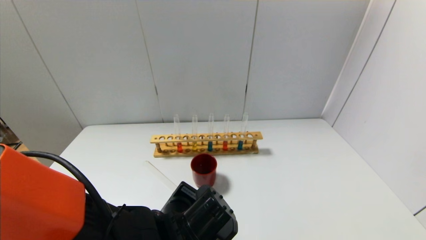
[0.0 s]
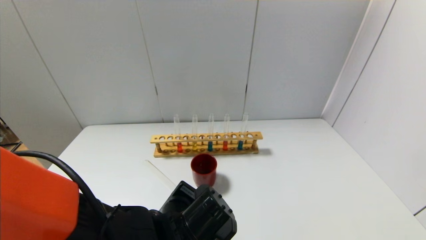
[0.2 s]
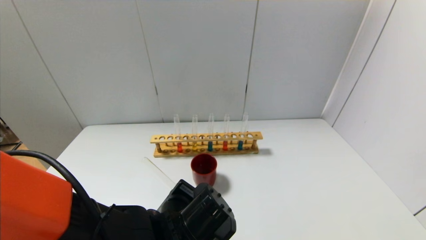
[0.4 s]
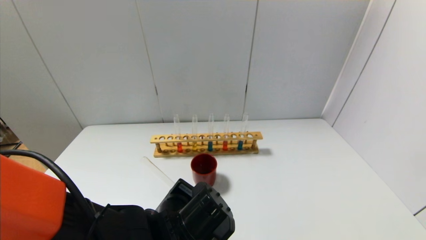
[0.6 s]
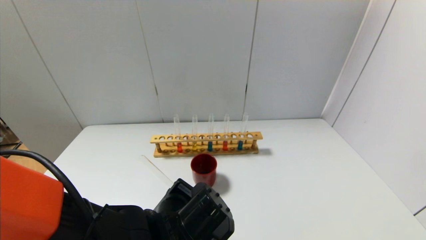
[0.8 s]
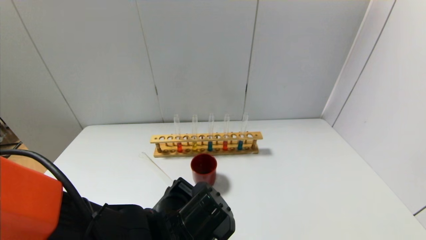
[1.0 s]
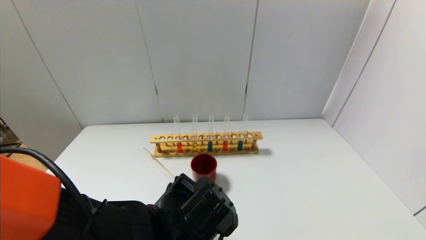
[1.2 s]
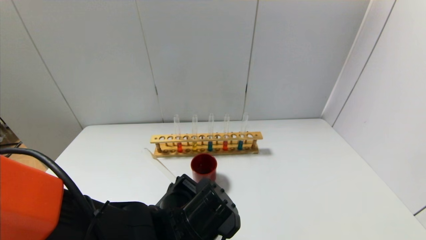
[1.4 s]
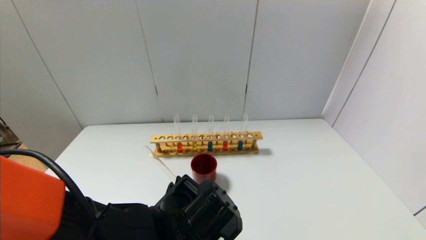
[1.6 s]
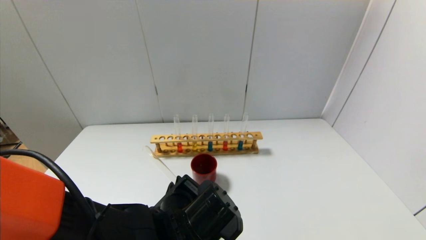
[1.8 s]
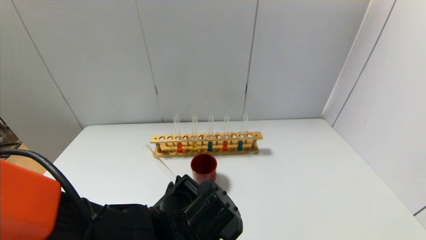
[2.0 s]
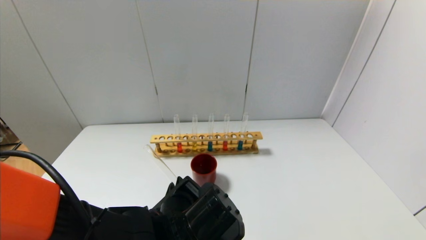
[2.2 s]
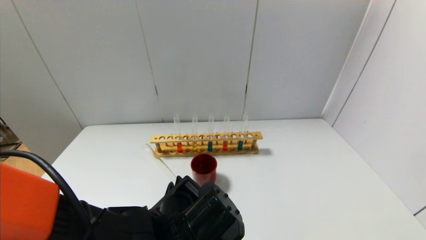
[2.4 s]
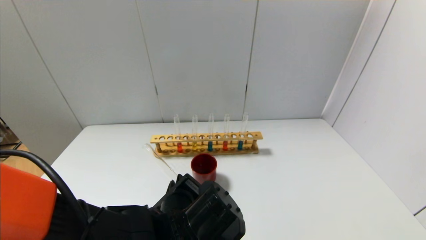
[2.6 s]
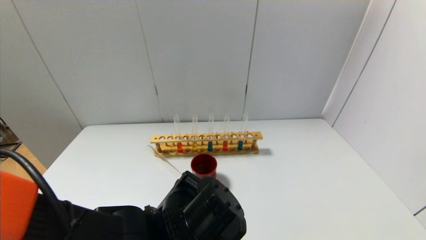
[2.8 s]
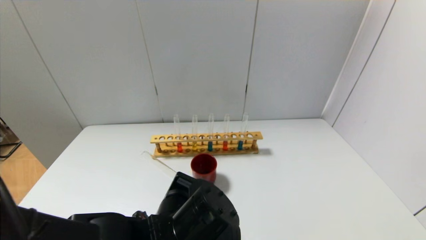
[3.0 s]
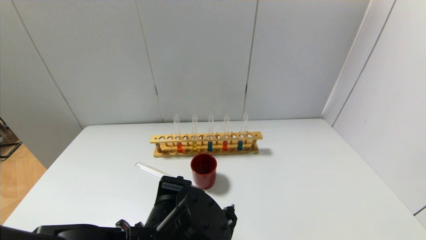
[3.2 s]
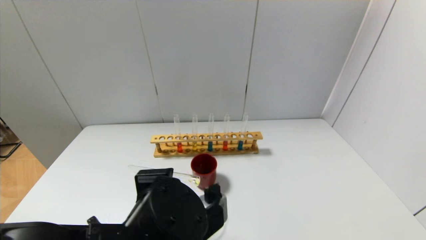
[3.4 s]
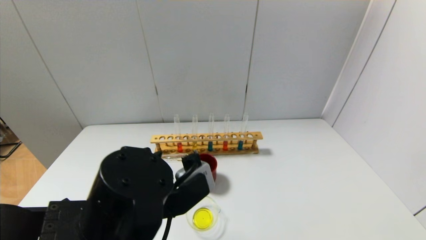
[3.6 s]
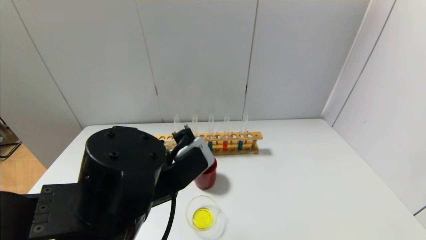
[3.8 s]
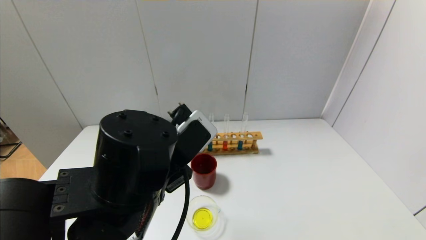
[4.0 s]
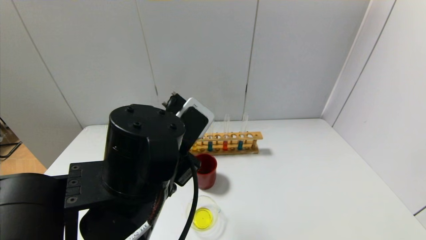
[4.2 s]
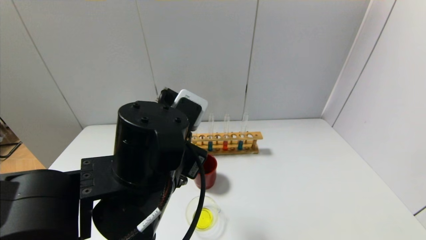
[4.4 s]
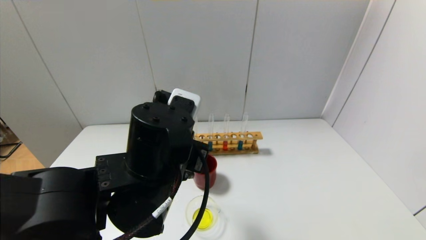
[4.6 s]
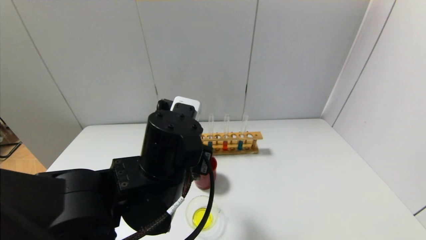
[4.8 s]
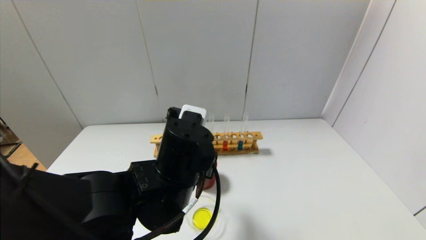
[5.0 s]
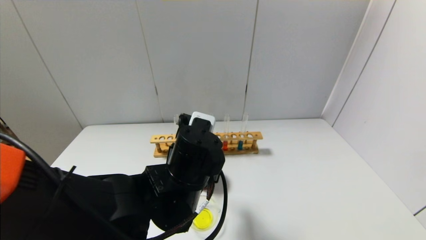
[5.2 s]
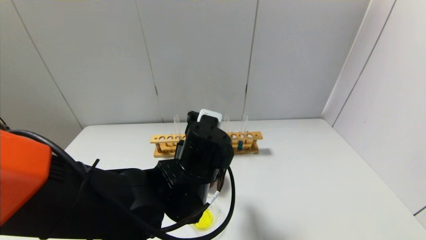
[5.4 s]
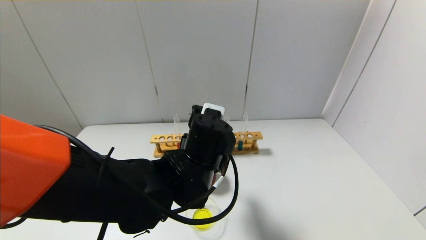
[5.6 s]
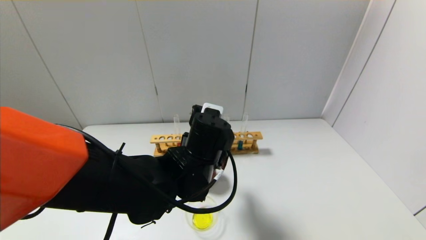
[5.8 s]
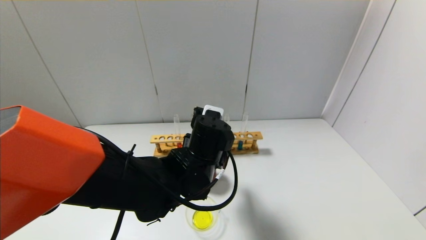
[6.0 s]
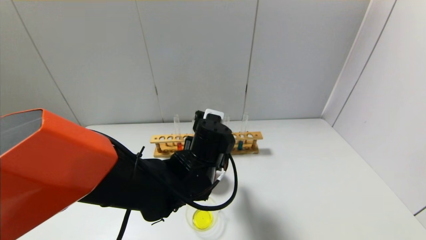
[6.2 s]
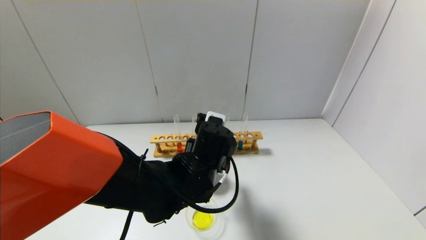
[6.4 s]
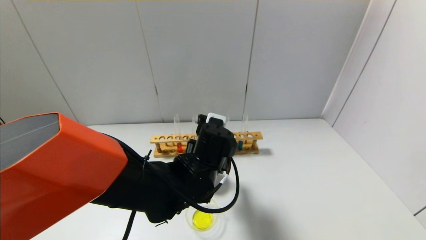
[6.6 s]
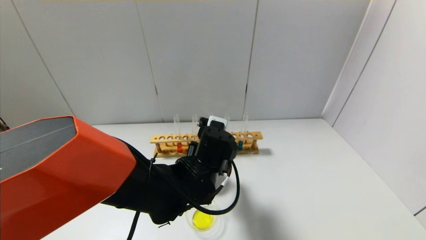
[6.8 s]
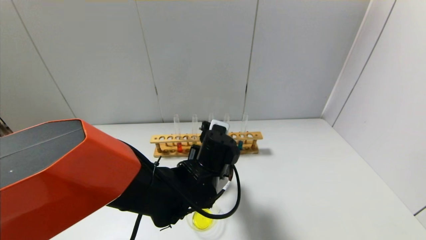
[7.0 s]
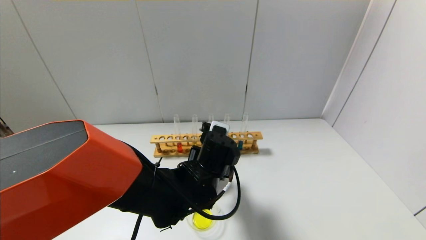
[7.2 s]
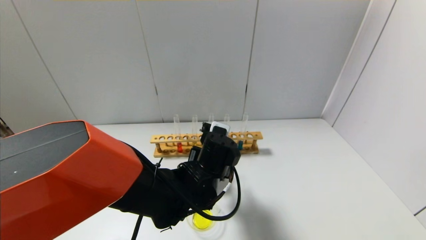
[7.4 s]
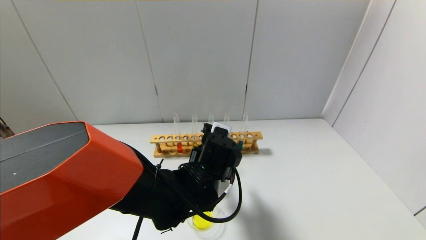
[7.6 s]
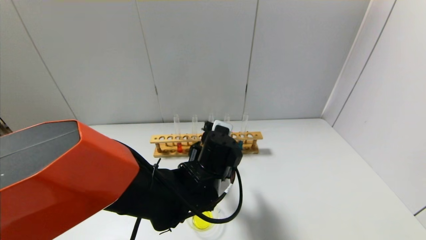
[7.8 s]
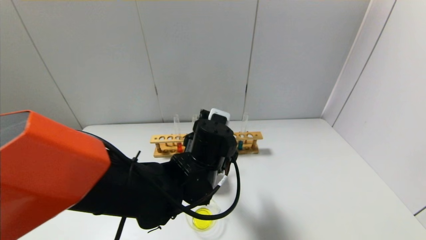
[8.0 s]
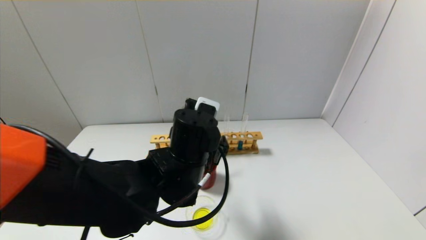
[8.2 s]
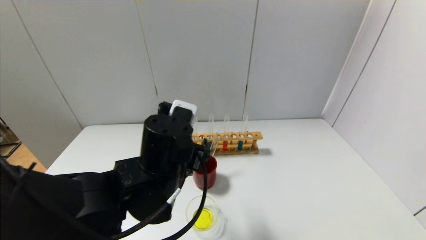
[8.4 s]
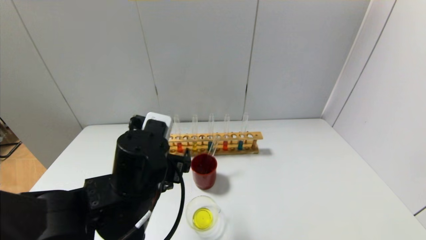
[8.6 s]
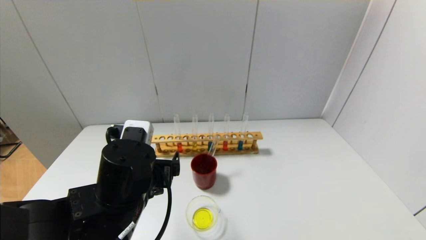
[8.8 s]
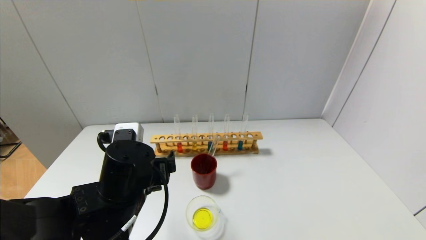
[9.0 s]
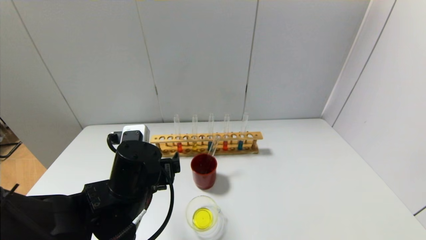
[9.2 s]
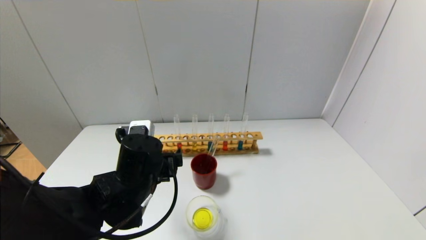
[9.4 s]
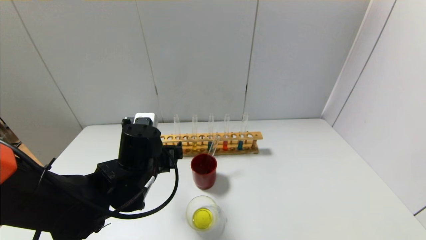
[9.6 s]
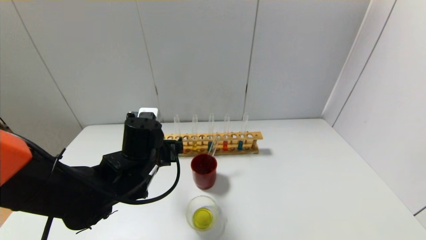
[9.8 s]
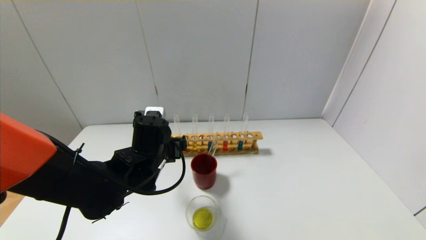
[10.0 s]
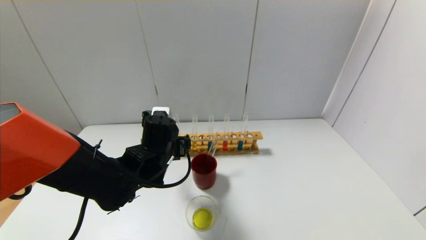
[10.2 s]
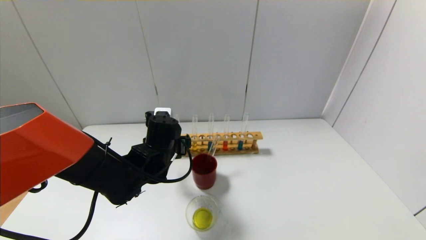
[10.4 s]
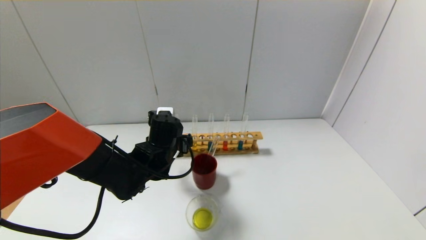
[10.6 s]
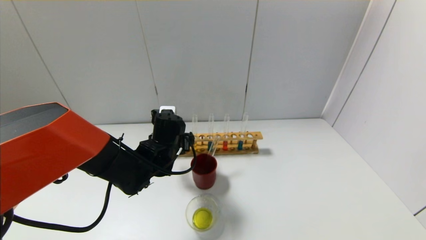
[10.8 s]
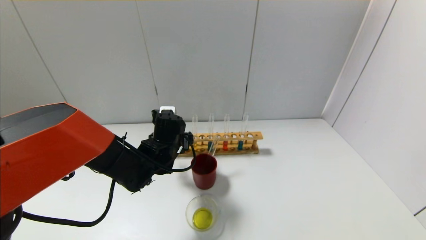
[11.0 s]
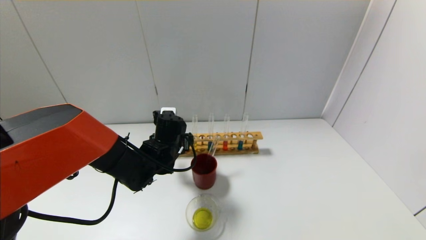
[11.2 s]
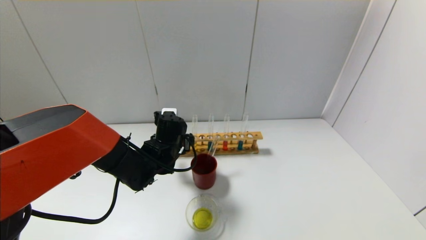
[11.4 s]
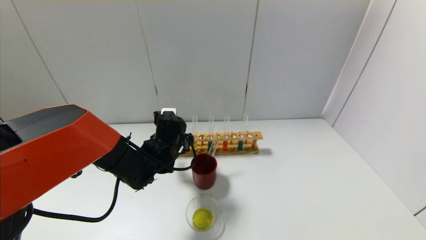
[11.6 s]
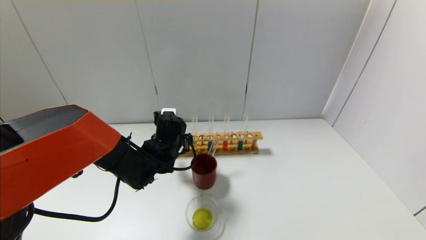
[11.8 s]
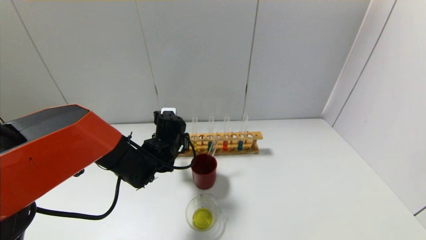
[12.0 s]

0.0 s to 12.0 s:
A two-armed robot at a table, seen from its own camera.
Step, 0.0 to 2.8 s: Pour the yellow reagent into the graduated cylinder with the left gripper.
Step, 3.0 to 7.4 s: Place the test tube into the brown cup with the left gripper.
0.0 to 1.6 s: The grippers move only a little.
3.0 to 4.4 s: The left gripper travels upward by about 10 cm.
4.4 to 6.0 s: The left gripper moves forward, downward and to the right, about 10 cm.
6.0 to 7.6 s: The left gripper opens its fingers.
7.6 to 9.0 s: The left gripper goes some 15 cm to the left and backward.
9.0 to 10.4 s: The left gripper goes about 10 cm forward.
10.4 to 12.0 s: The left gripper moves about 5 cm.

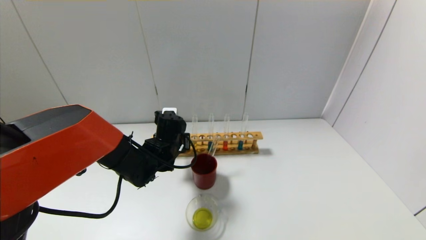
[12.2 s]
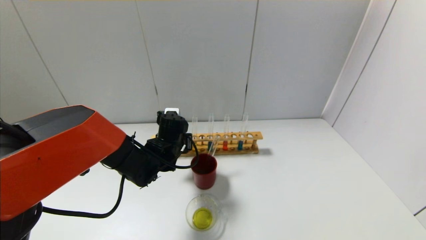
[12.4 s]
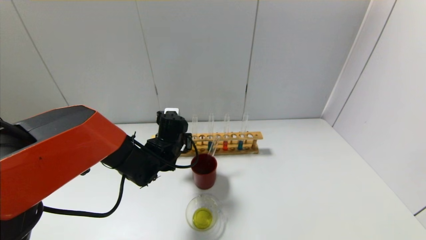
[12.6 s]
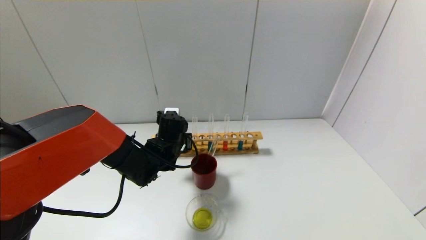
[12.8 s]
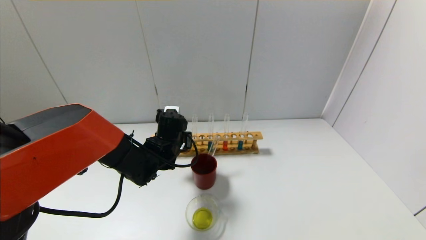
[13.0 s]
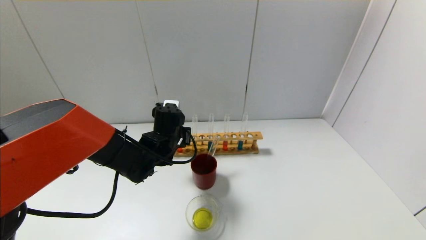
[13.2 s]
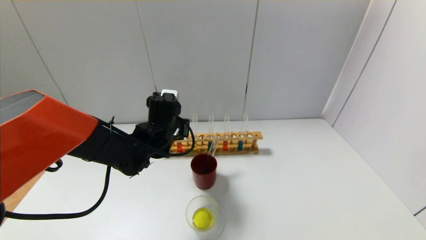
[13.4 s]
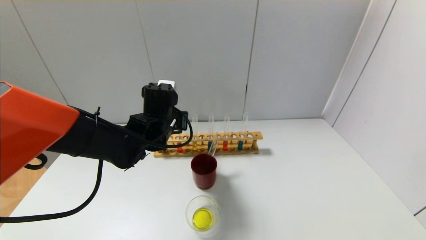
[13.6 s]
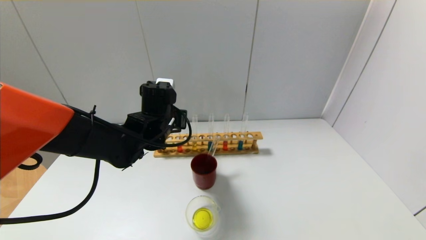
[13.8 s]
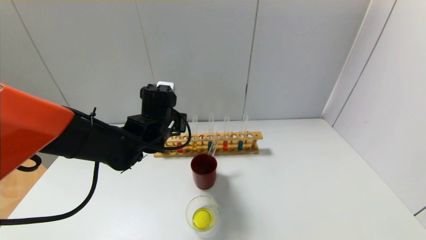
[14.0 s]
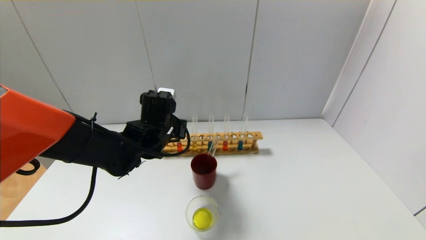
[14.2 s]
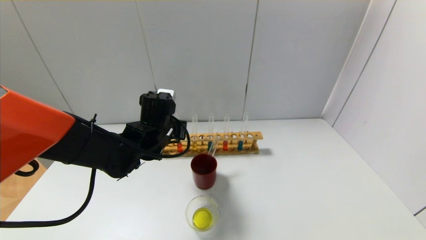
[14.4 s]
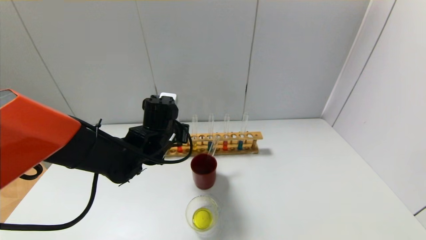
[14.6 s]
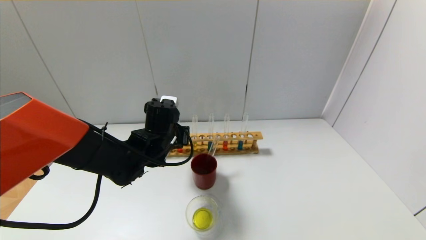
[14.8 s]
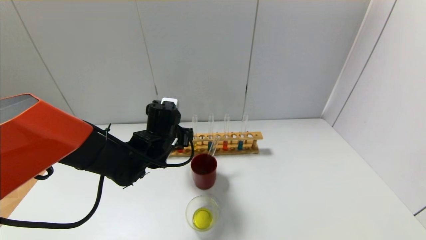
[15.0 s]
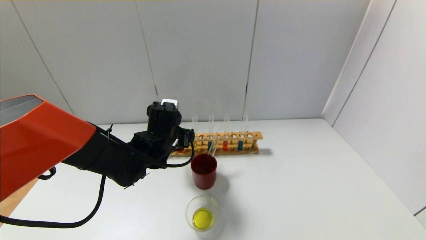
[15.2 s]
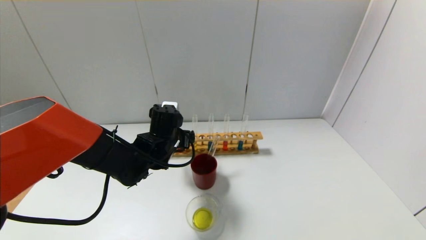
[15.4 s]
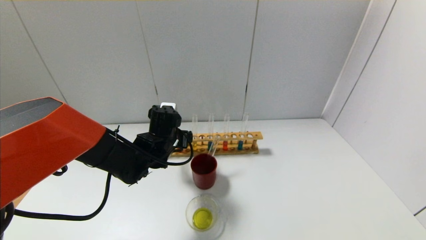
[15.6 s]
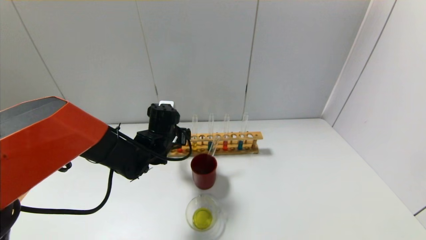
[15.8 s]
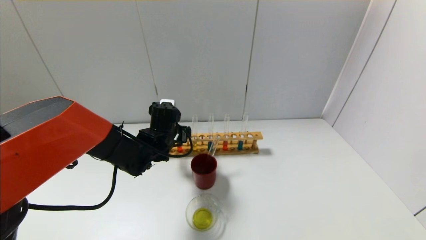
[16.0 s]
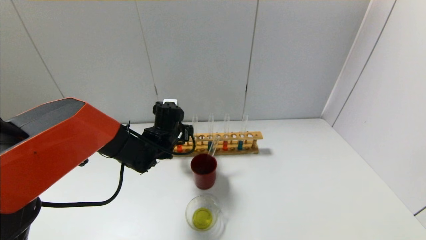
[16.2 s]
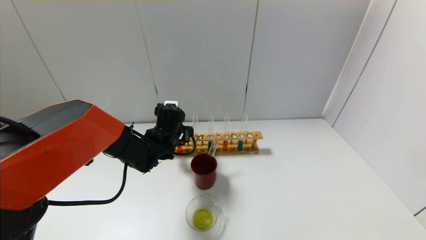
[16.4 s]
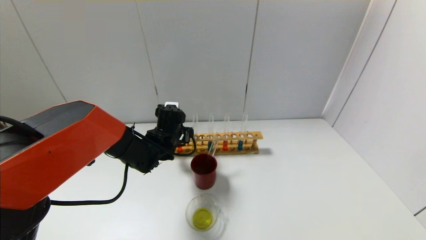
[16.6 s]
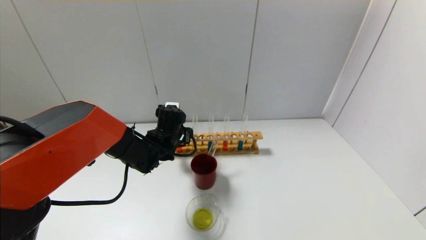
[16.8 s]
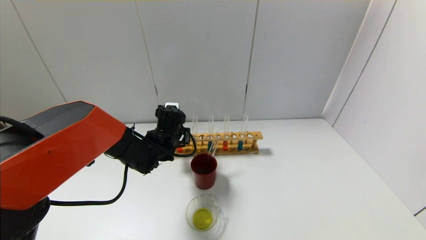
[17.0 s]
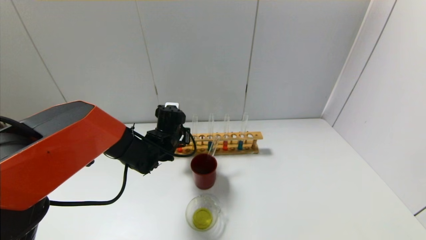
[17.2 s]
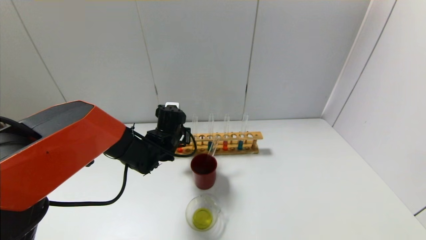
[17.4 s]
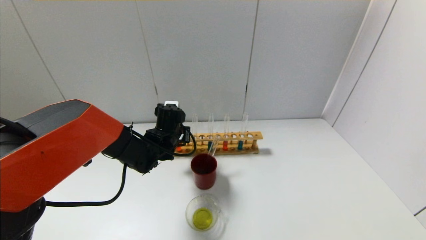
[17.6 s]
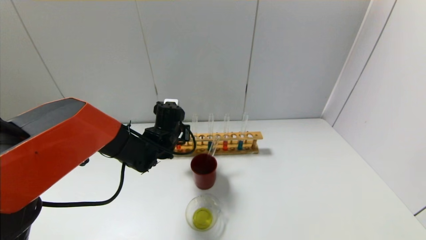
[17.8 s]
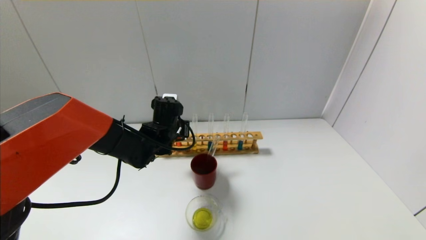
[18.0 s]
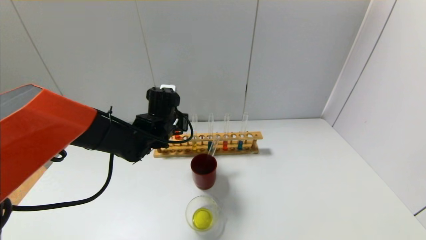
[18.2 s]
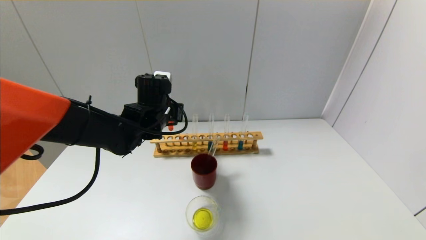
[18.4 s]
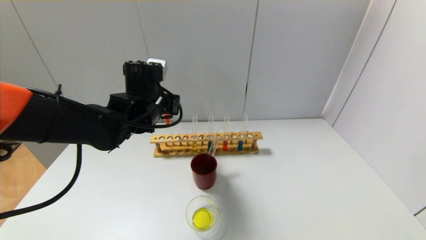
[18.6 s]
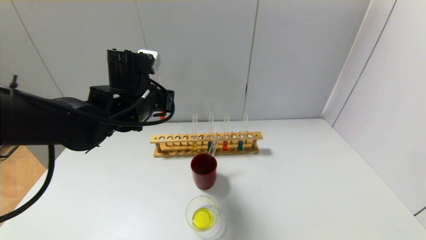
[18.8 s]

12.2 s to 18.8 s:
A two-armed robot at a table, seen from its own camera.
Step, 12.2 to 17.2 s: Grasp the red reagent with the left gripper.
12.2 to 13.8 s: The left gripper travels upward by roughly 10 cm, and closes its fingers.
13.8 to 15.4 s: The left gripper is displaced downward by about 5 cm, and opens up.
15.4 to 17.2 s: The left gripper moves approximately 5 cm, and closes.
17.2 to 18.8 s: The left gripper heads upward and backward, covering some 15 cm.
